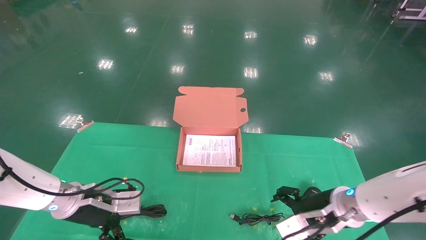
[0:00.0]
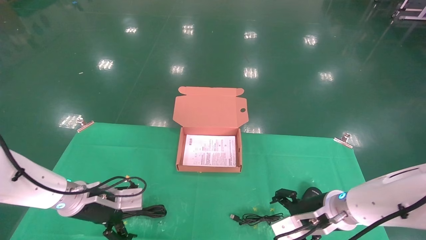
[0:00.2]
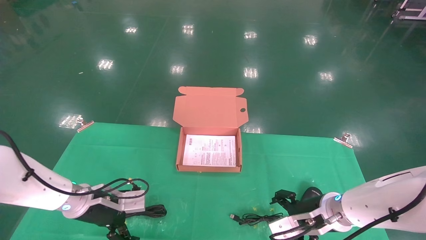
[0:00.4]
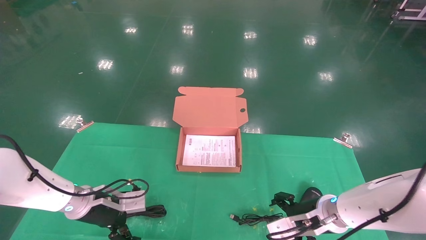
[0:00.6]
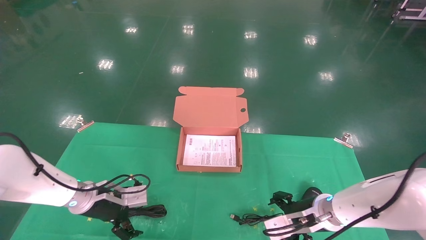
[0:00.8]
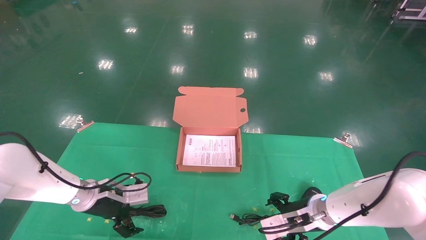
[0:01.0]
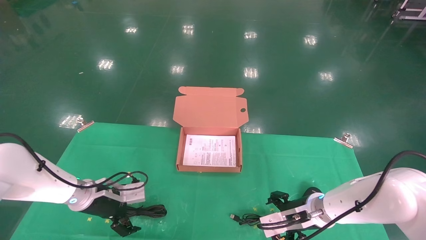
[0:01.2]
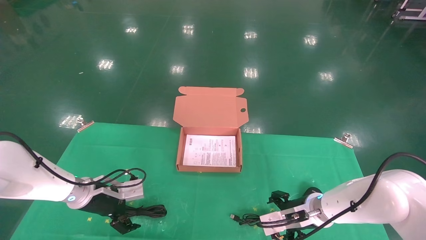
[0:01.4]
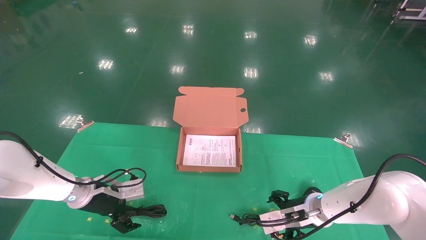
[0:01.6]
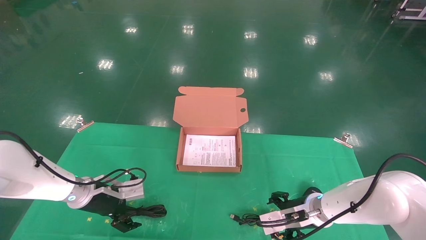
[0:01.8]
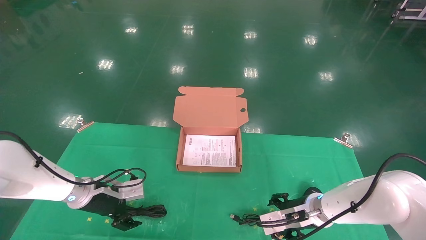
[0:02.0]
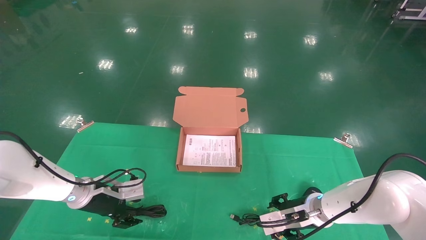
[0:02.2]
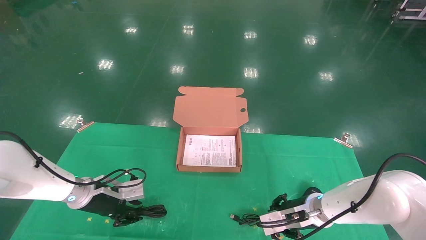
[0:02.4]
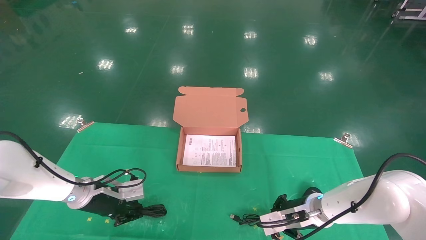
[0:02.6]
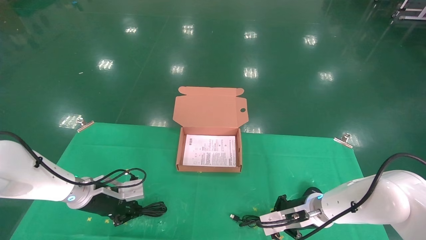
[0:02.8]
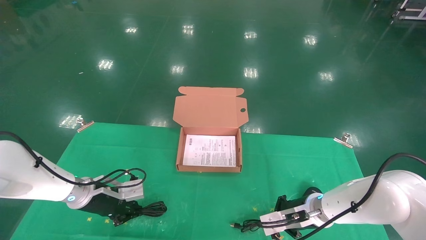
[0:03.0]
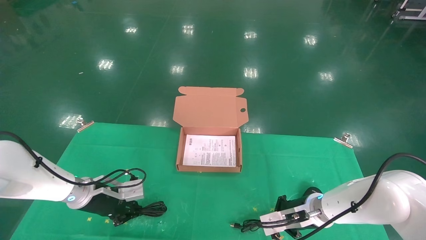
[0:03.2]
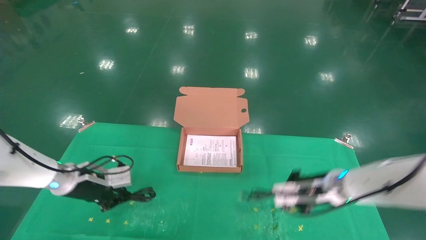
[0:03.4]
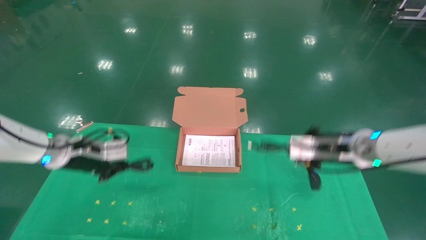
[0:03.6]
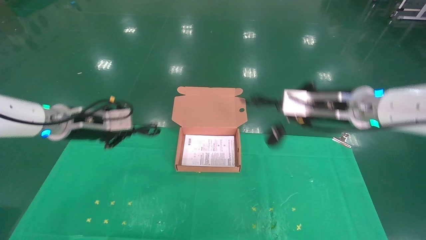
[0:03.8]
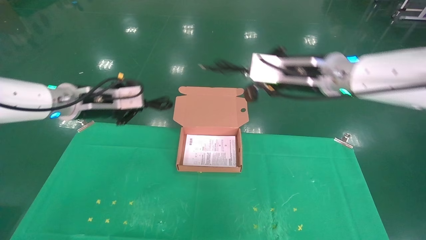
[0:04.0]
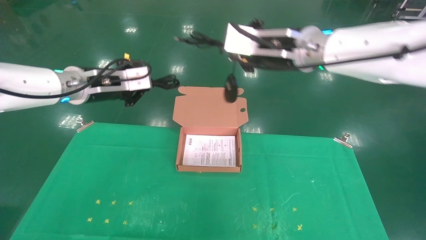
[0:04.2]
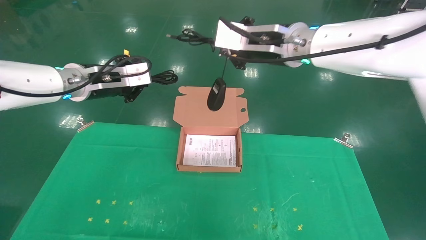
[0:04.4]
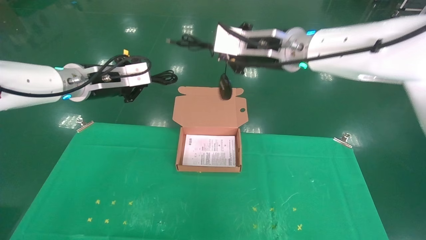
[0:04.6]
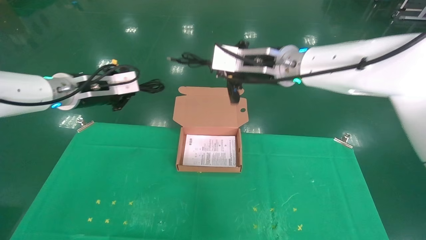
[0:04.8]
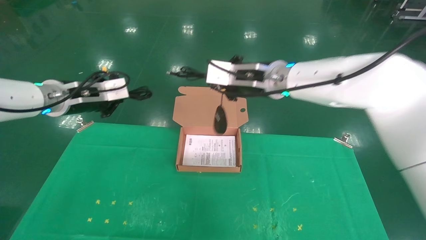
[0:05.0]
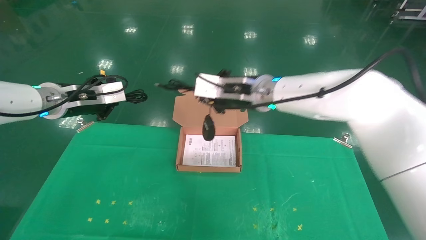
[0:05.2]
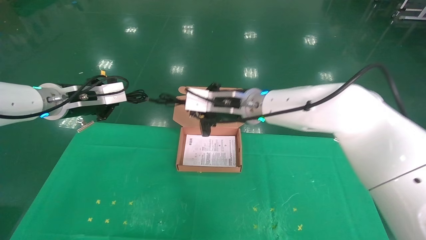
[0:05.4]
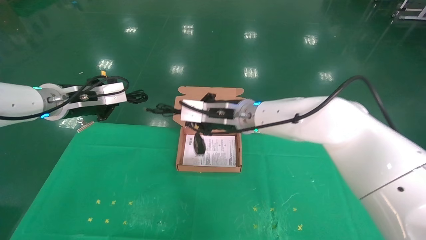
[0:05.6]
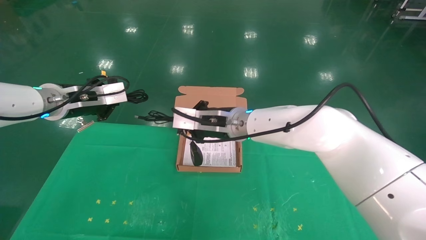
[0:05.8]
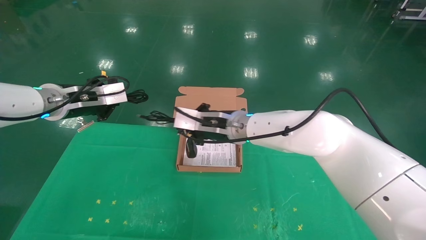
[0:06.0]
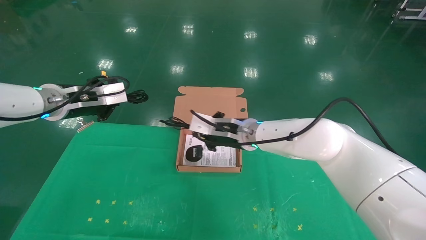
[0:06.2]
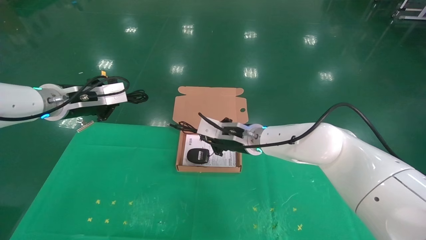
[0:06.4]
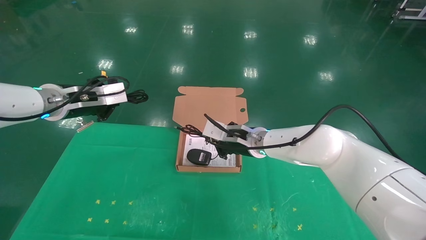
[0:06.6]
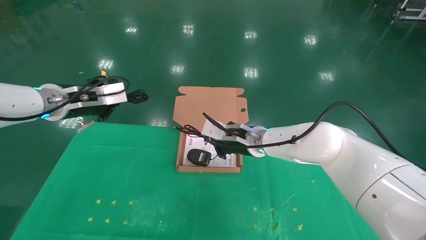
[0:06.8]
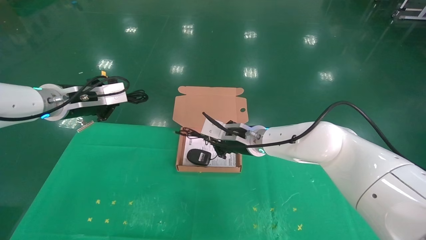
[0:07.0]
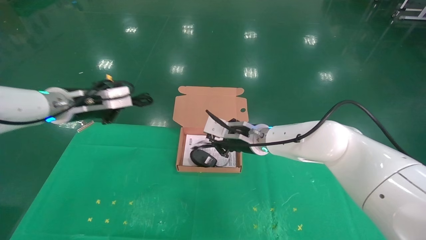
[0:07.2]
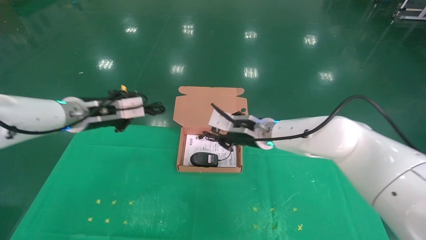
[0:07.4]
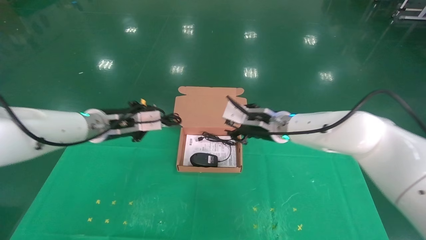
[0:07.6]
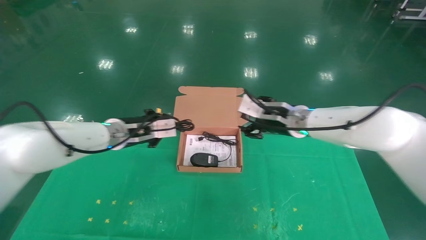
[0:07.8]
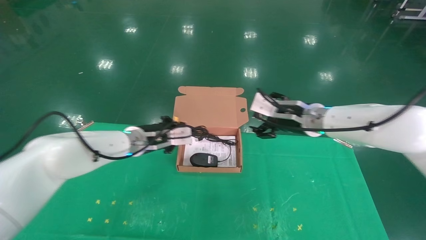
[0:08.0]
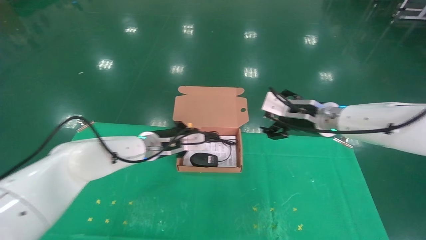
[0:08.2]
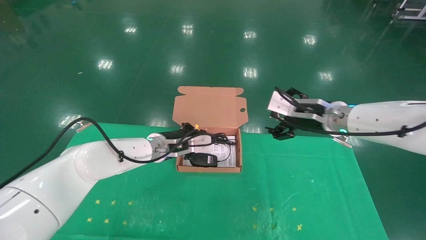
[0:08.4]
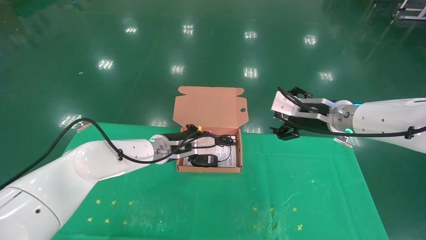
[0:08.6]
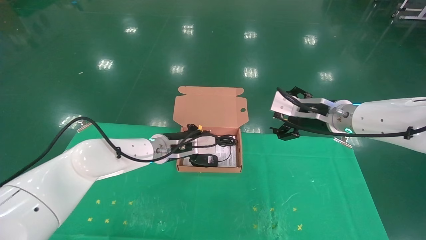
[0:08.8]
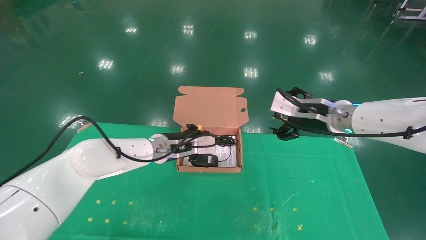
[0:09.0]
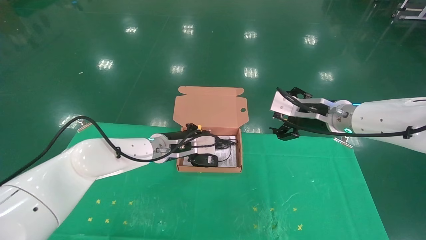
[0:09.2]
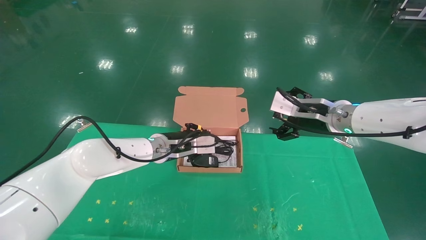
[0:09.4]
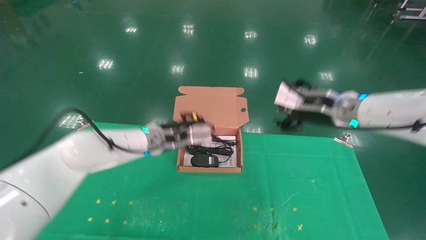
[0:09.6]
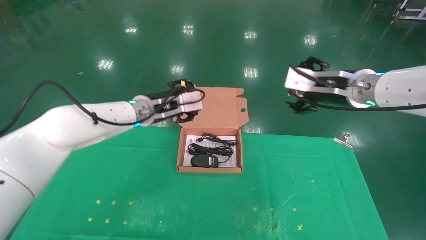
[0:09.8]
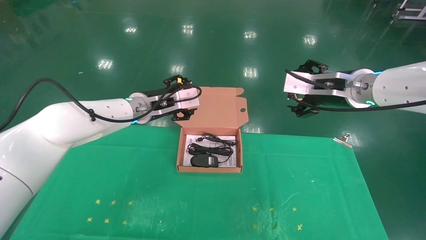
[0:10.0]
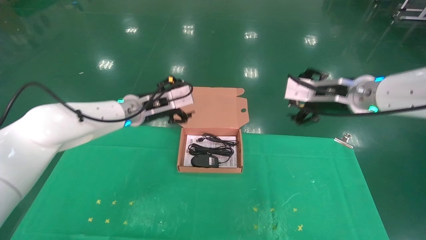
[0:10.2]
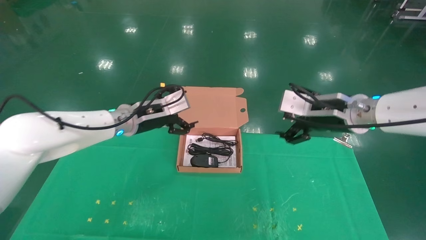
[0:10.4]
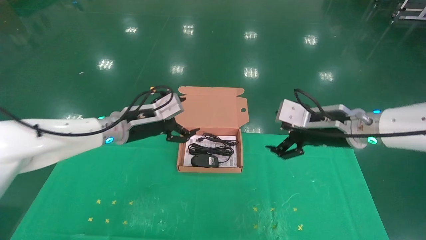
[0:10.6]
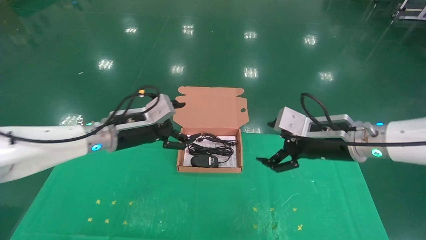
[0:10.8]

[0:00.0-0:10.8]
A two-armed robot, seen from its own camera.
Task of the whole recording: grasp data cable left put into box grasp mouse right put into box.
Step, 0:00.0 to 0:03.0: Grab and pick up both the mouse and power cord from the accessory packaging area at the same time.
Step, 0:03.2 to 0:09.0: Place the mouse and power cord into the box.
0:00.0 to 0:01.6: The right gripper is displaced forward and downward by some 10 cm. Meanwhile the left gripper heads forward, covering some 5 cm.
0:01.6 to 0:03.0: The right gripper closes; the left gripper closes.
0:03.0 to 0:04.6: Both grippers travel together upward, approximately 30 cm.
0:04.6 to 0:06.2: The right gripper is displaced downward by approximately 15 cm.
0:06.2 to 0:07.8: The left gripper shifts roughly 15 cm to the right and downward; the right gripper is displaced to the right by approximately 10 cm, and opens.
0:07.8 to 0:09.2: The grippers both shift to the right by about 5 cm. The right gripper opens.
0:09.2 to 0:10.8: The left gripper moves to the left, backward and upward, roughly 10 cm, and opens its fingers. Meanwhile the right gripper heads backward, covering roughly 5 cm, and moves roughly 5 cm upward and comes back.
